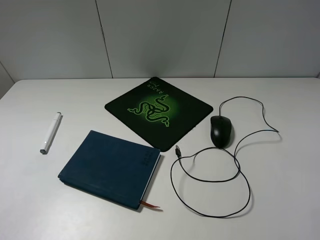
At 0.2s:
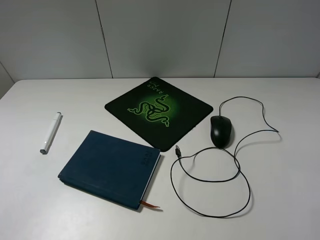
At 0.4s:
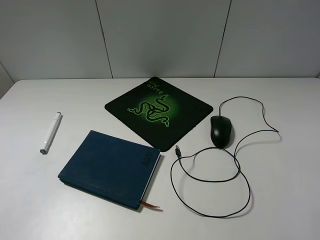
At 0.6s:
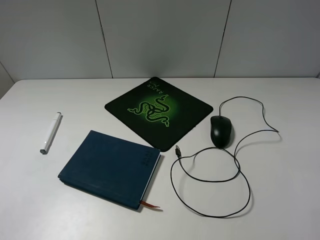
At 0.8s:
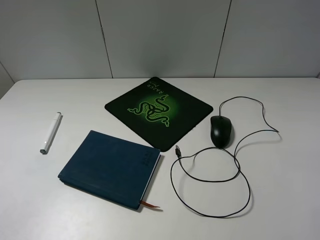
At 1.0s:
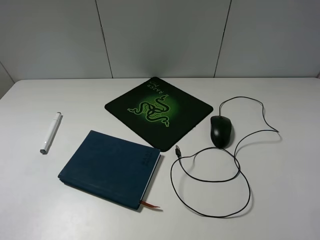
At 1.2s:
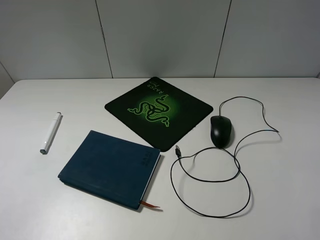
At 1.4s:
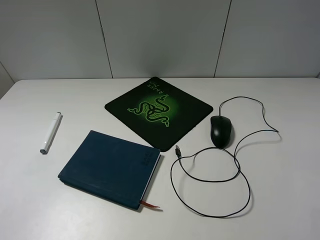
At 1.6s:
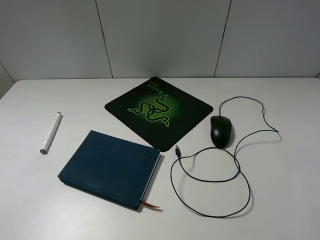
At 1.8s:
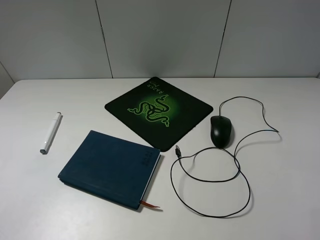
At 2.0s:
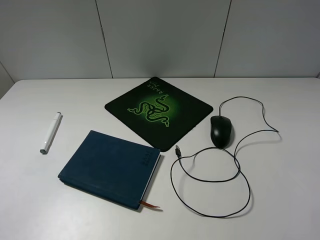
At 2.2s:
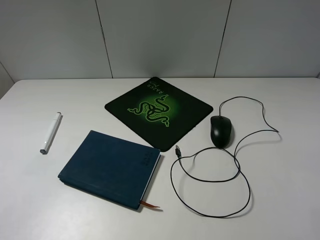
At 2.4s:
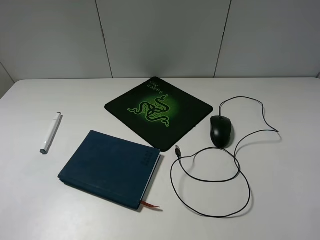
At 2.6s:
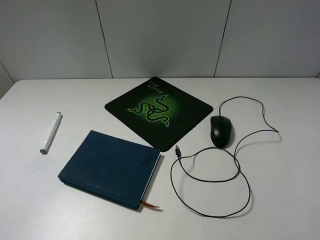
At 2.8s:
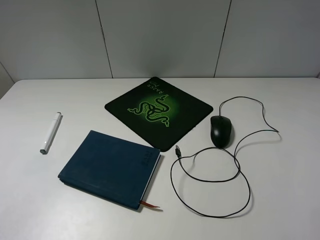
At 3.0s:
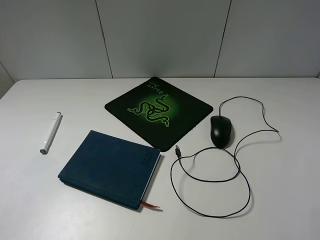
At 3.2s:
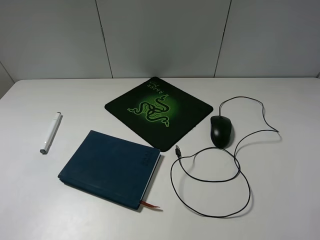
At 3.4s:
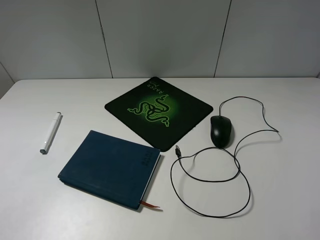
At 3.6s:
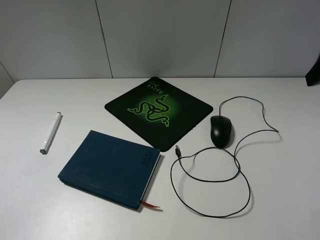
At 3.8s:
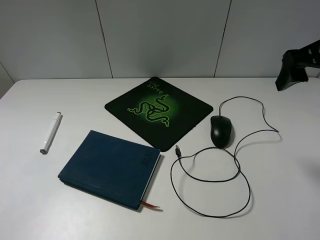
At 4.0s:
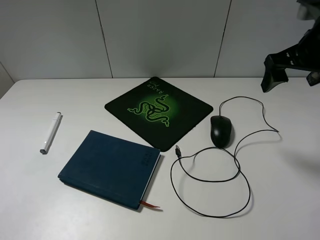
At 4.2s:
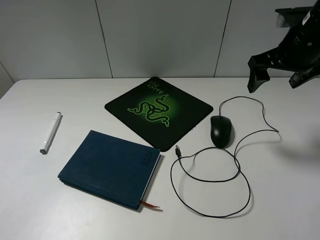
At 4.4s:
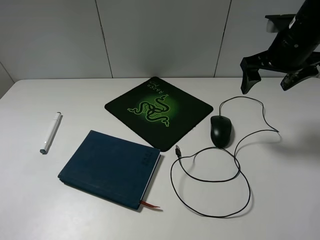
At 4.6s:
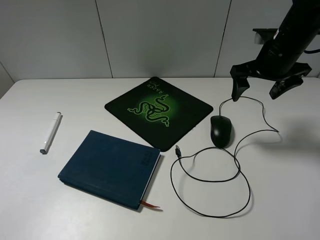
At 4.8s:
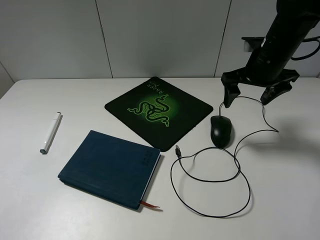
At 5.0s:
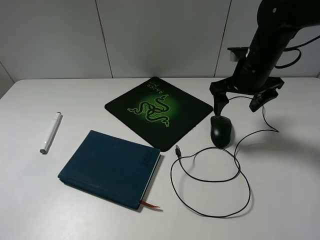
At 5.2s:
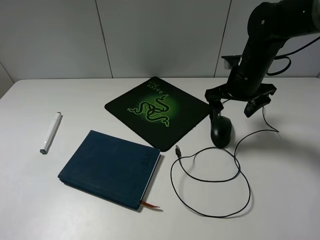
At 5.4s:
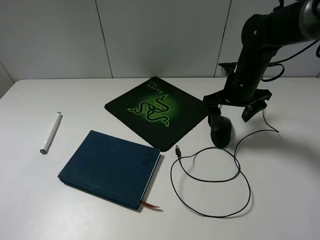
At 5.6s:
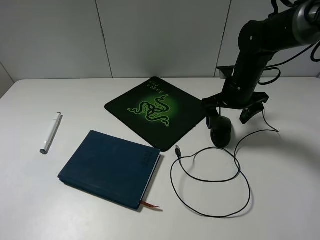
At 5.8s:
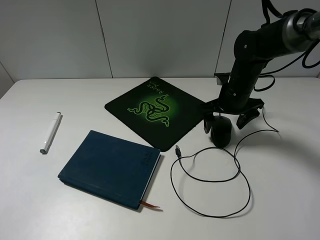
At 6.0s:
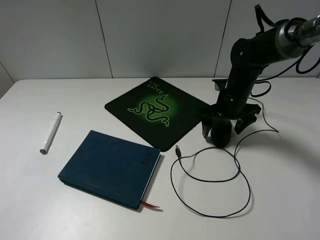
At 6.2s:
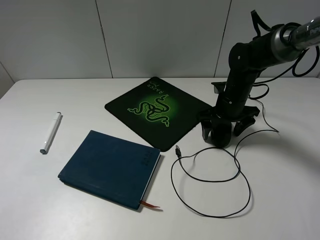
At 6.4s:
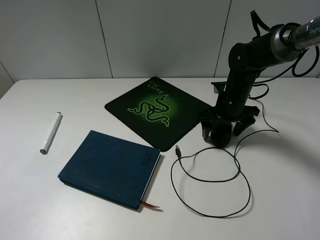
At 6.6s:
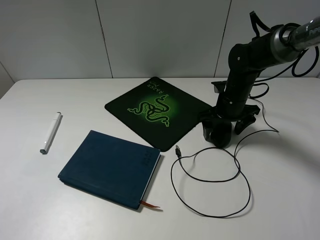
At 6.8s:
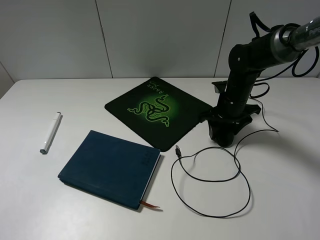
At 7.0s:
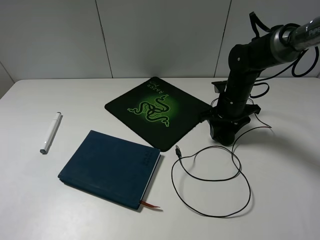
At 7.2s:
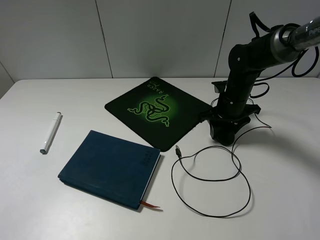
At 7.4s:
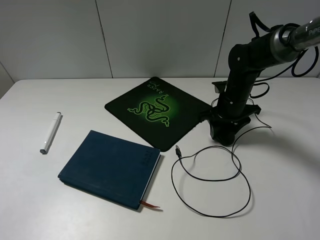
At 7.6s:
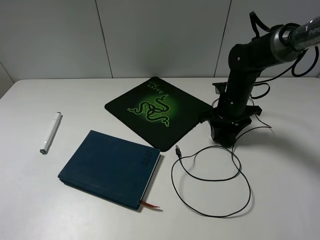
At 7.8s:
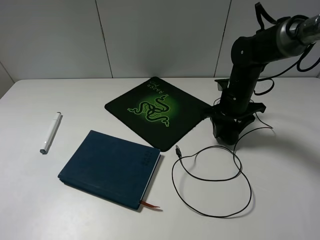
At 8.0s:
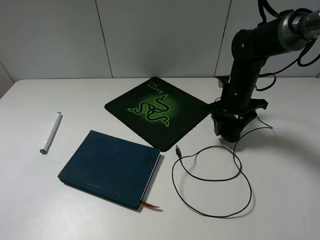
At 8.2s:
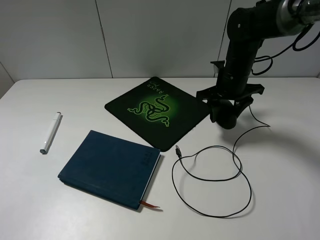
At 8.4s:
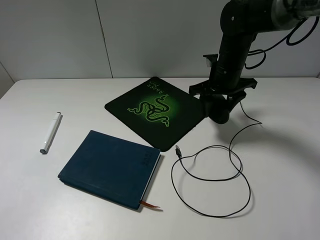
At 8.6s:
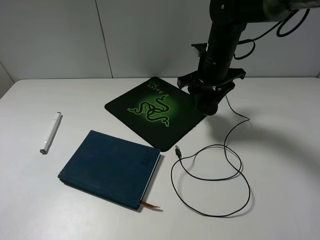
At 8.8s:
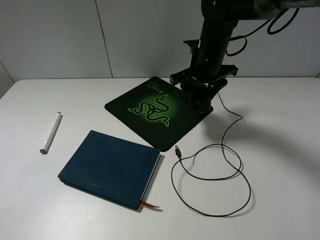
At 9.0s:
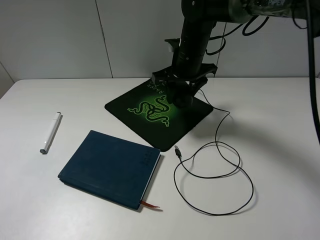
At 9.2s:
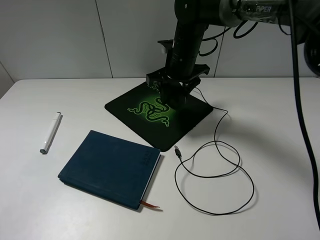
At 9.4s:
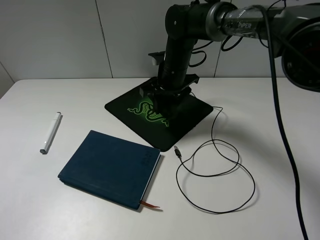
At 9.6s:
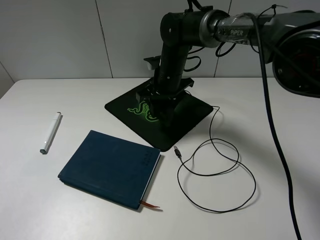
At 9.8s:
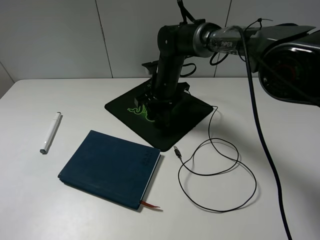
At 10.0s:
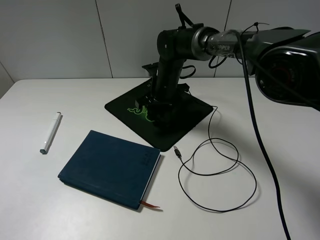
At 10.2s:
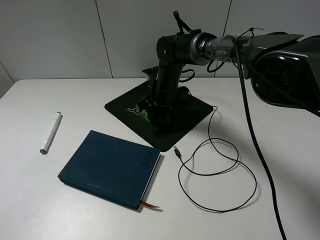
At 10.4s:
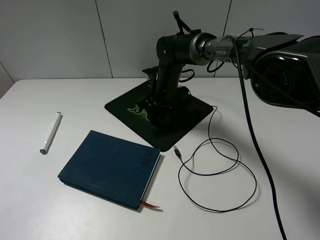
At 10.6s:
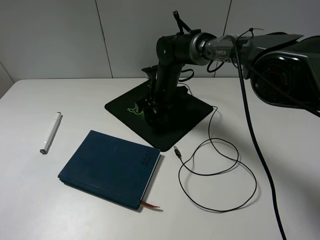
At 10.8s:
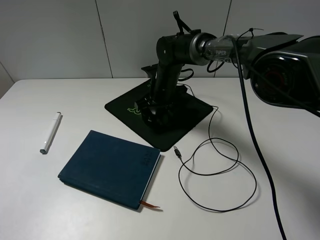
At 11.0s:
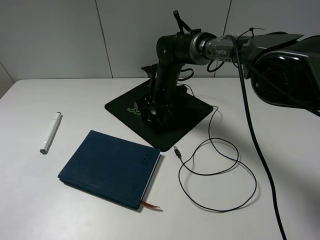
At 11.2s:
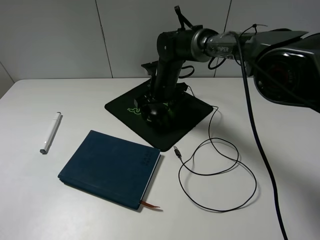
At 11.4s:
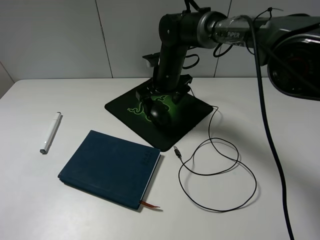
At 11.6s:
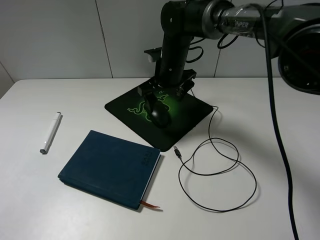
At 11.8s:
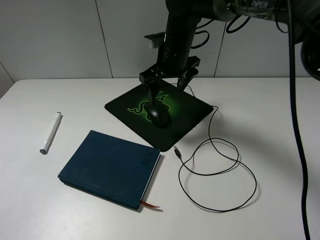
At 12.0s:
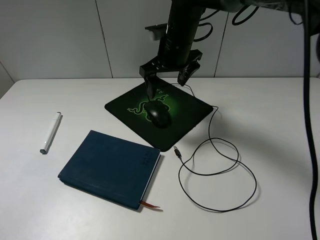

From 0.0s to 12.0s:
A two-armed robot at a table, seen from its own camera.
Step, from 0.0s to 6.8s: Grasp the mouse with the right gripper.
Step, from 7.0s to 11.0s: Place the mouse on the mouse pad with the right gripper.
From 0.0s to 1.6s: Both grippers stay about where they are.
From 3.0s to 4.4s: The right gripper heads forward, covering some 25 cm.
From 4.4s to 6.0s: The right gripper goes roughly 15 cm downward and to the left.
From 6.0s to 7.6s: The right gripper closes up.
From 7.6s to 9.0s: The right gripper travels to the left and upward by some 15 cm.
From 9.0s to 10.4s: The right gripper heads downward, covering some 10 cm.
From 10.4s to 12.0s: The right gripper travels upward by some 15 cm, and opens.

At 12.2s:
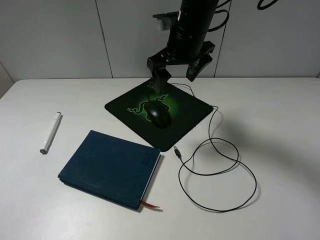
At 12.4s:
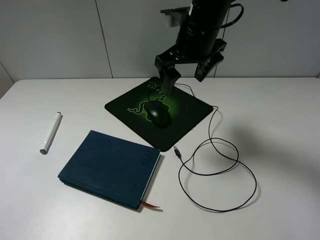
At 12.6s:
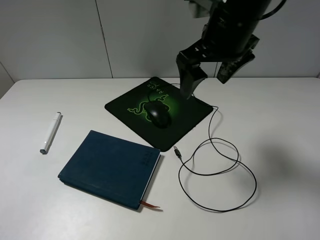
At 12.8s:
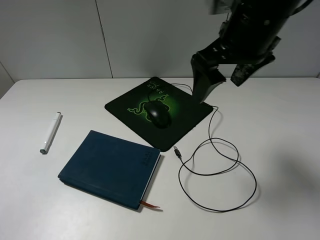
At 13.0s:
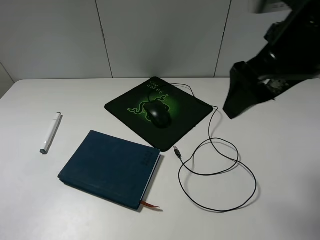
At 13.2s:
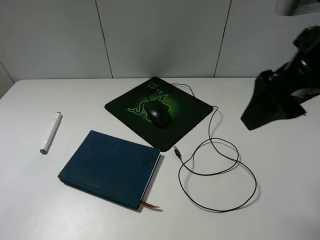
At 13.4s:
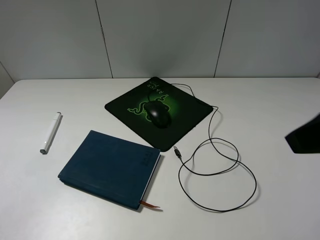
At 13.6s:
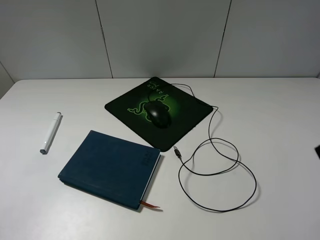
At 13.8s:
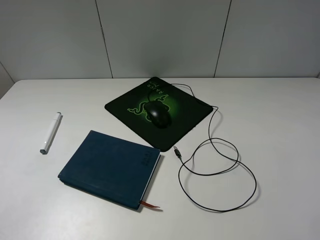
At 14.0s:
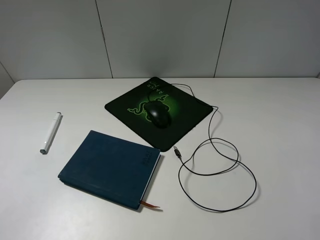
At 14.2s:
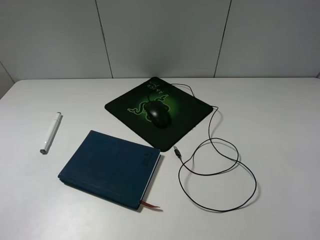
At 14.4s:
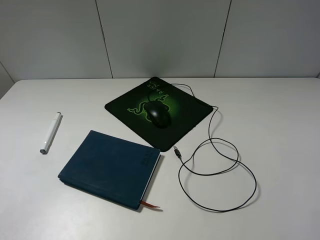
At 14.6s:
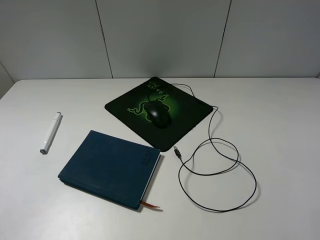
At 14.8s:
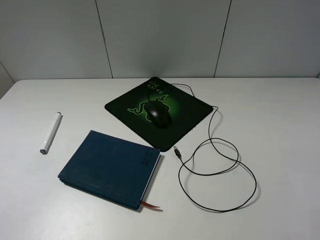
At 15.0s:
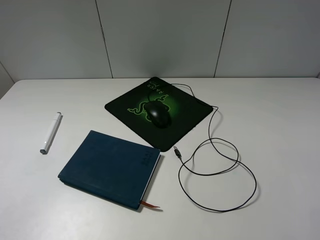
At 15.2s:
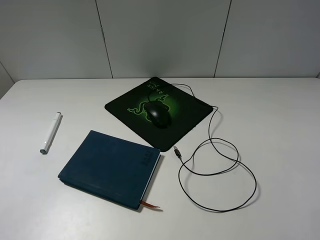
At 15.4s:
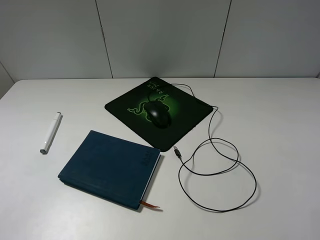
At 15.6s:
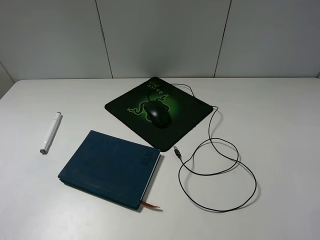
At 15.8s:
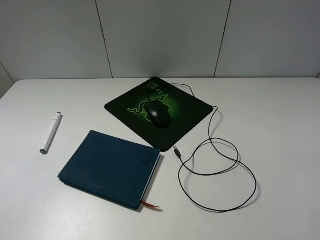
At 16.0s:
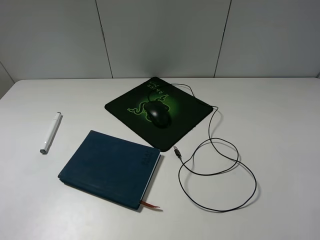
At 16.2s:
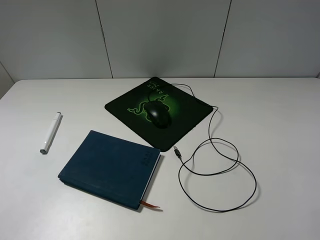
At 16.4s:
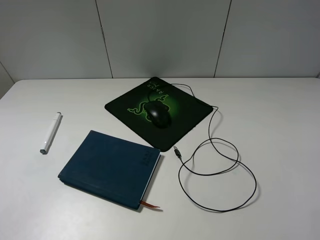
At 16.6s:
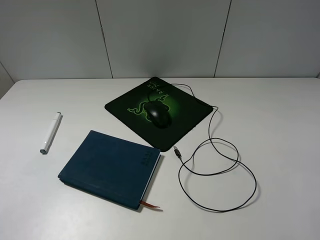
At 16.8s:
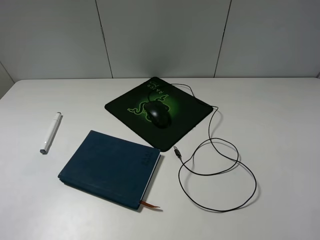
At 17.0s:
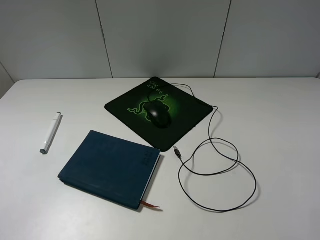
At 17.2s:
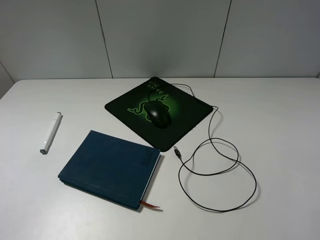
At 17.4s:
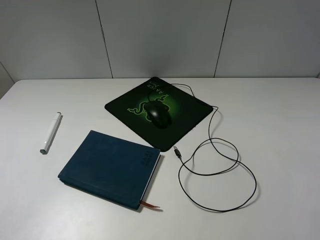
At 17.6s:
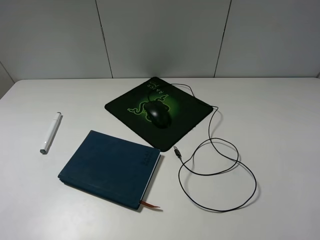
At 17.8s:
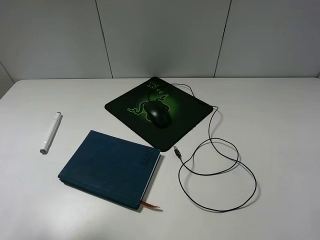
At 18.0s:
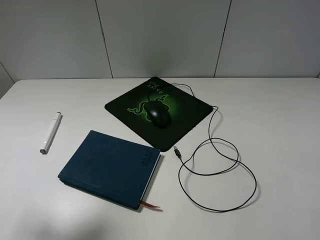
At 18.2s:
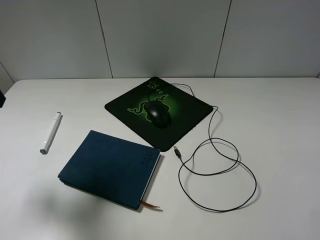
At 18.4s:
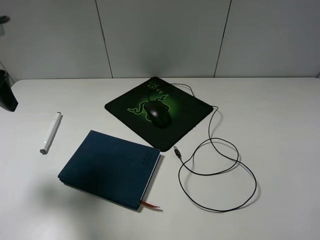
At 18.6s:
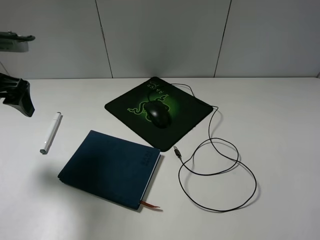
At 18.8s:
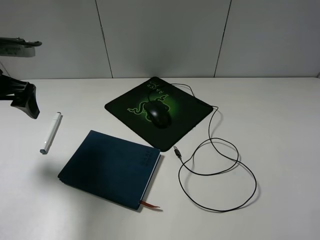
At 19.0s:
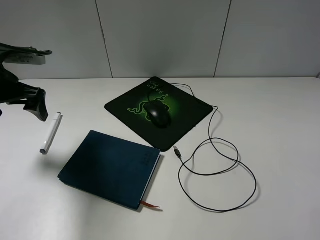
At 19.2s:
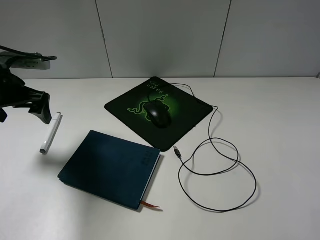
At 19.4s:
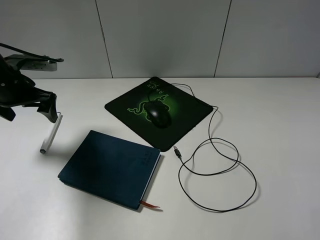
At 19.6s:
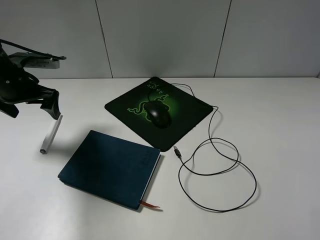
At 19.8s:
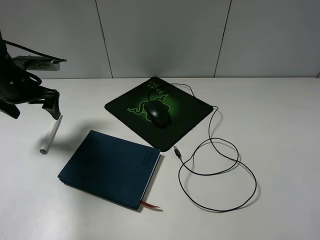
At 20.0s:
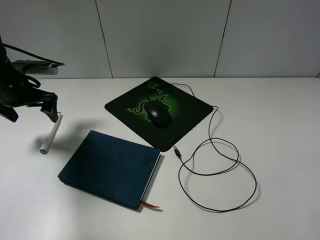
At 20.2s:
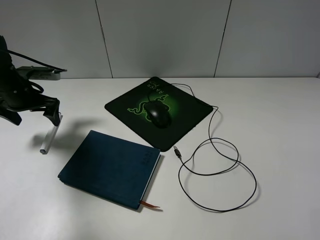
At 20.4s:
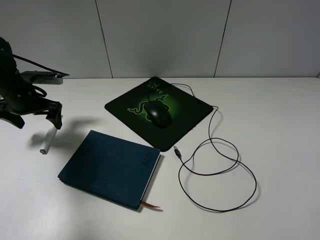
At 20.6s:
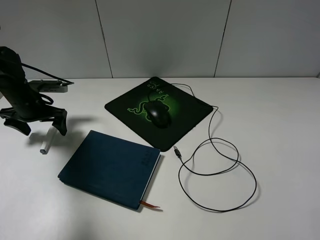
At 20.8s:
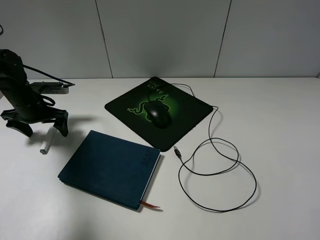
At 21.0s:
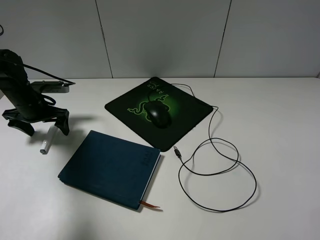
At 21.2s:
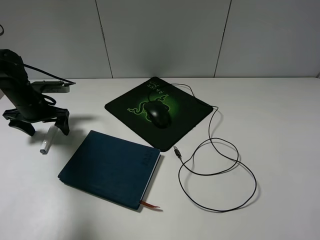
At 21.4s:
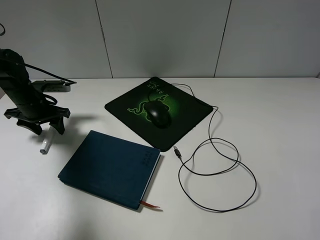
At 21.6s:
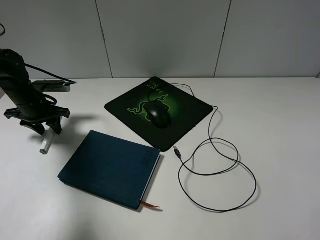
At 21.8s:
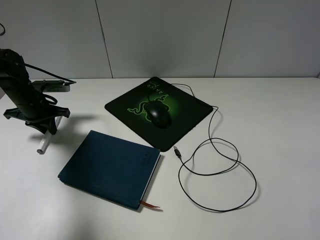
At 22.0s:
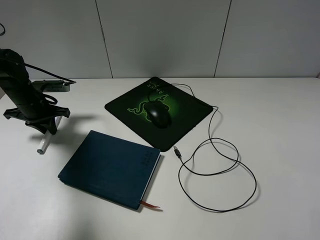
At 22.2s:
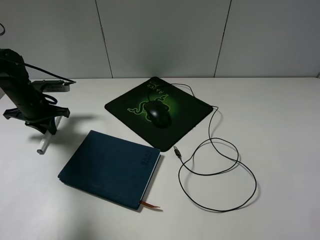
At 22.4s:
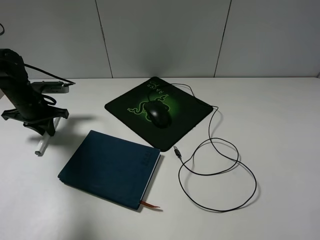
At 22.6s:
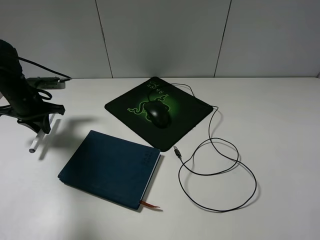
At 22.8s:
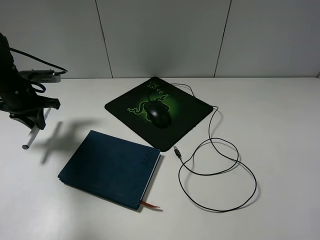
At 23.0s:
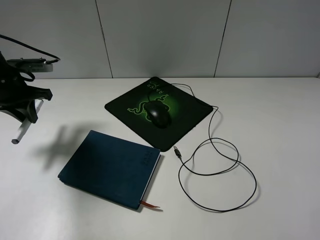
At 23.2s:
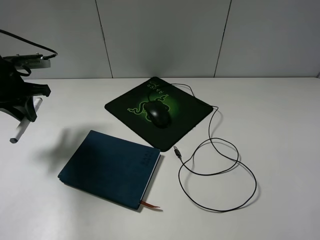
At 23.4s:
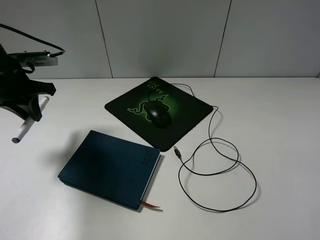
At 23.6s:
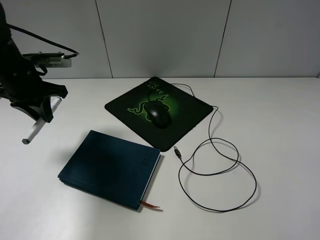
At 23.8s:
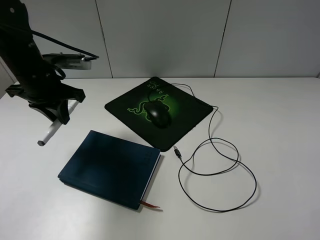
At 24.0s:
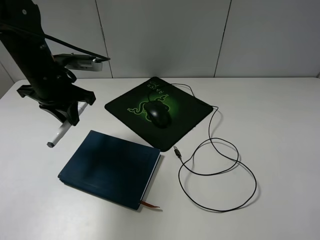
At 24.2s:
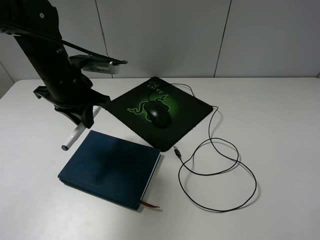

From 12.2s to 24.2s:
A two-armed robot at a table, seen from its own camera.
Step, from 12.2s to 22.0s: Grasp the marker with the left gripper.
From 12.2s to 13.8s: The right gripper travels backward and to the right by about 40 cm.
From 15.2s to 16.6s: Both grippers stay about where they are.
From 16.6s to 18.2s: The left gripper is displaced forward by roughly 20 cm.
From 18.2s to 19.8s: The left gripper is displaced forward and downward by some 20 cm.
From 19.8s to 21.2s: The left gripper heads downward, covering approximately 10 cm.
From 21.2s to 22.6s: The left gripper closes its fingers.
From 22.6s to 24.2s: The left gripper travels to the right and upward by approximately 20 cm.
